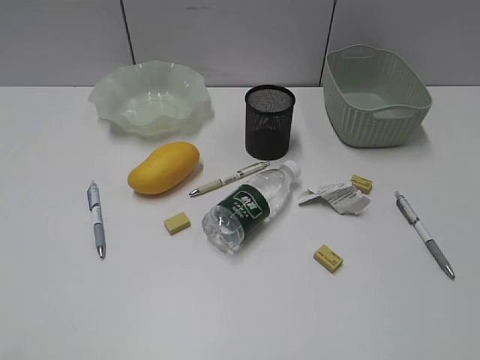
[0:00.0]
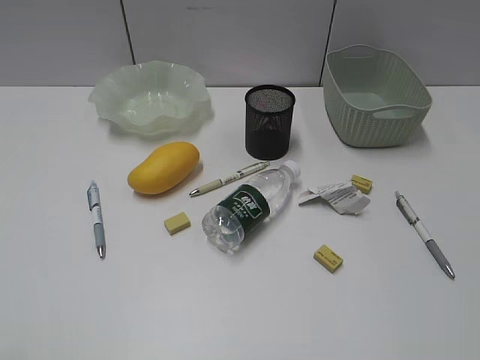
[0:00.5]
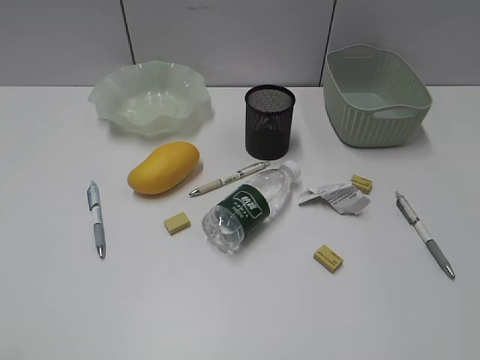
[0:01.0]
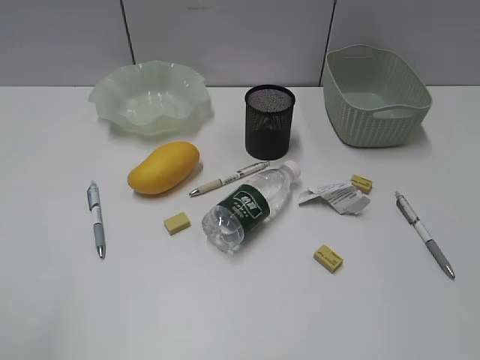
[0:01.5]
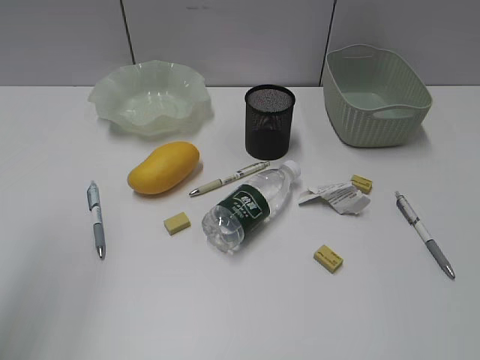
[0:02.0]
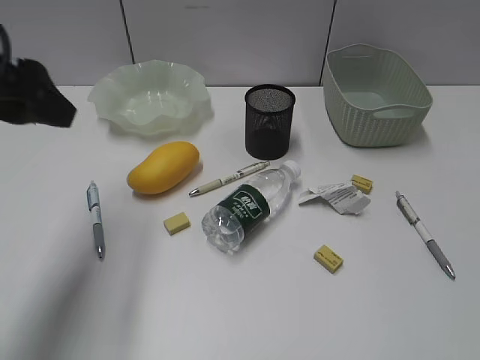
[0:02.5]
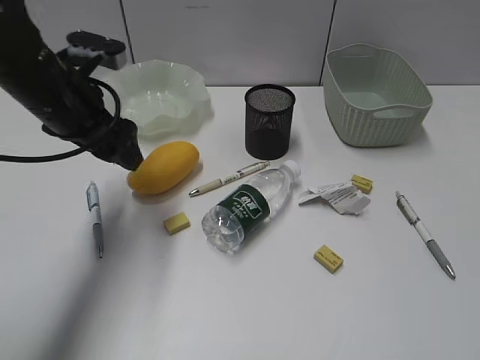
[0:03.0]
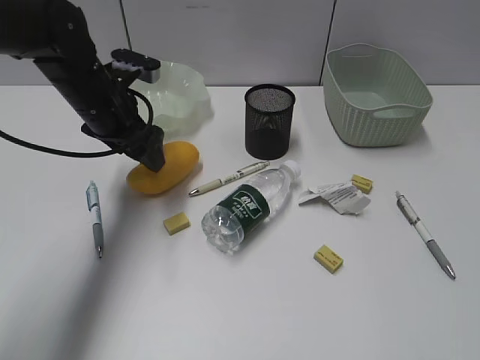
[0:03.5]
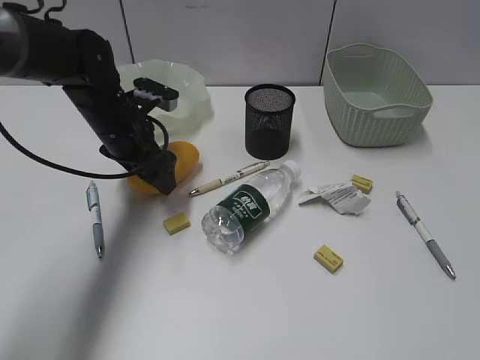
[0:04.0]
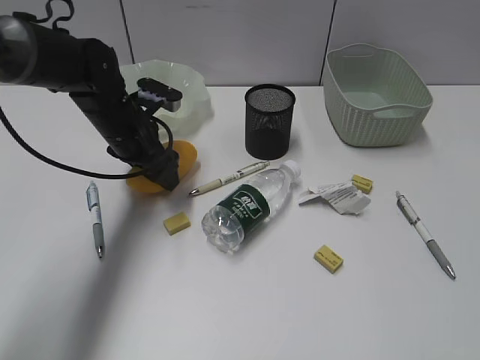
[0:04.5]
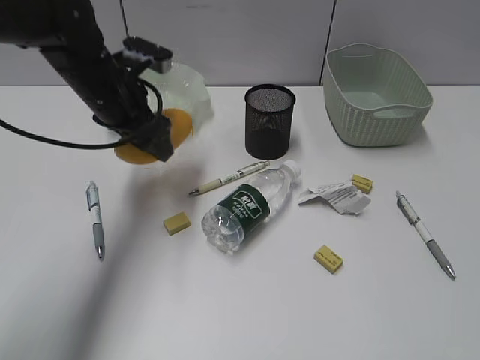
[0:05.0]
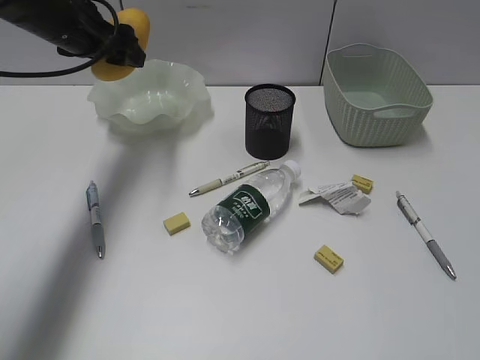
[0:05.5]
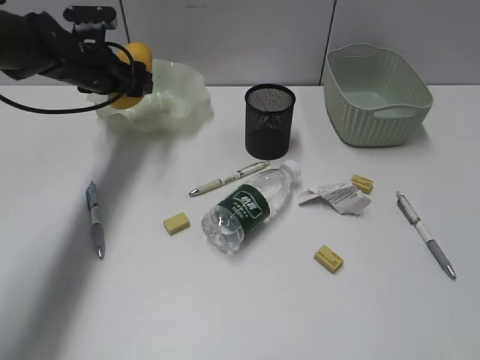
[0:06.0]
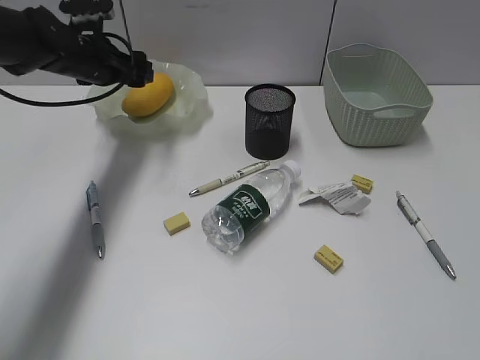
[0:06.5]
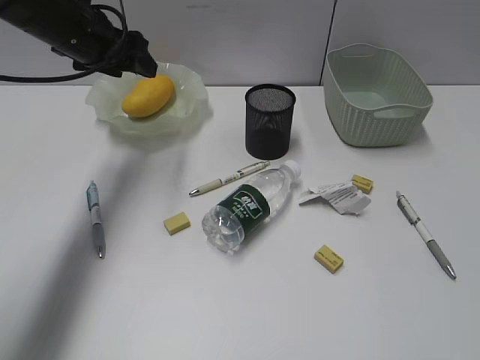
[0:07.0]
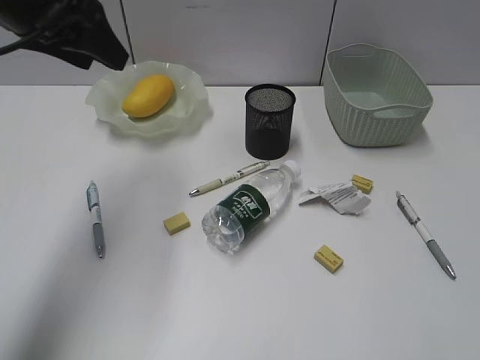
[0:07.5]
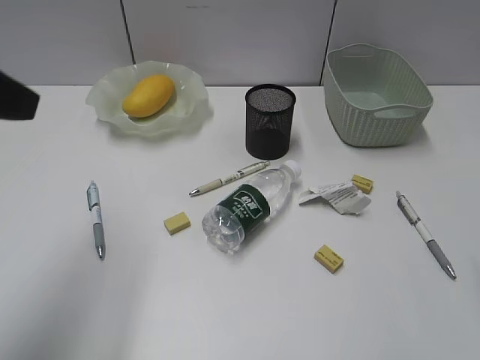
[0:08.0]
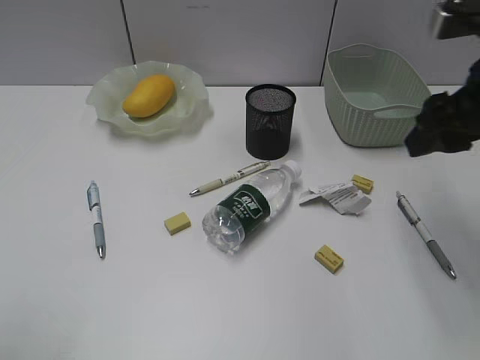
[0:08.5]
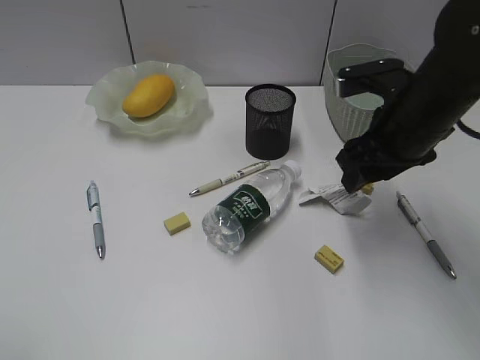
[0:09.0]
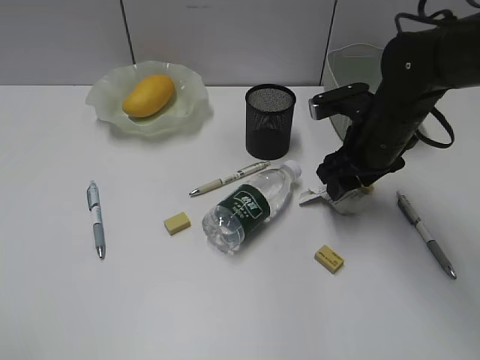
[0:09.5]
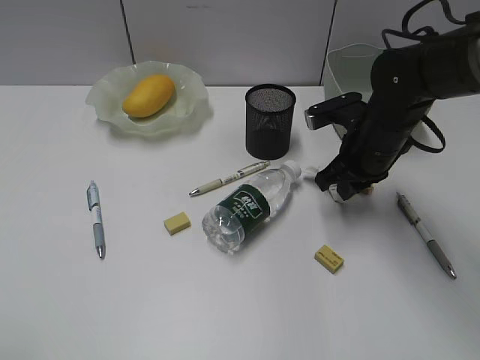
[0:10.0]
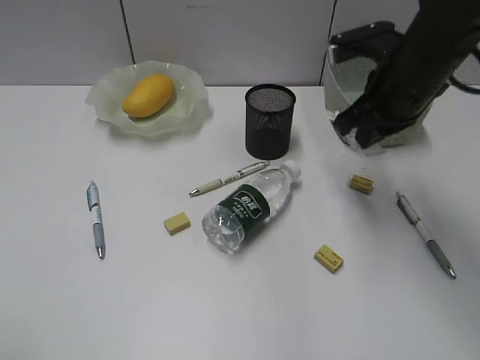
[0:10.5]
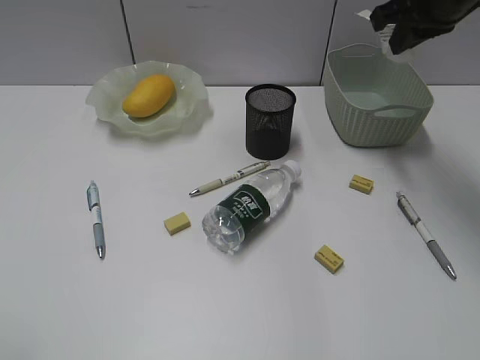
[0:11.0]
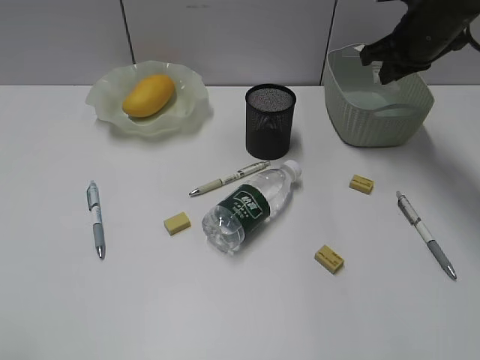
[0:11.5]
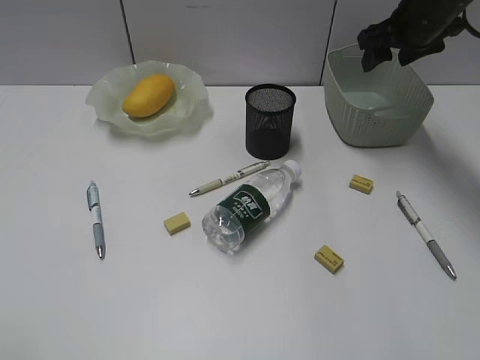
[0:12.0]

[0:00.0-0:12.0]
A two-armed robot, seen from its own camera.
Step, 2.5 to 4.5 s: Grasp the mango with left gripper.
Step, 5.0 to 6.5 s: Place the mango in the plate with left gripper.
Step, 7.0 to 10.0 s: Grasp the waste paper with right gripper.
Step, 10.5 to 11.5 s: Place the waste paper in the basket with right gripper.
2.0 to 4.0 s: The left gripper is displaced downward, forward and to the right by approximately 40 cm.
4.0 to 6.0 s: The left gripper shifts some 10 cm forward and to the left, and travels upward and back again, approximately 10 cm each way.
6.0 to 8.0 s: The left gripper travels backward and upward by some 30 cm.
8.0 to 10.0 s: The right gripper is displaced forward, downward and to the left by approximately 30 cm, and closes its fingers. Meanwhile the left gripper travels backward by roughly 20 cm.
10.0 to 12.0 s: The right gripper is displaced forward, upward and to the right by roughly 15 cm, and opens.

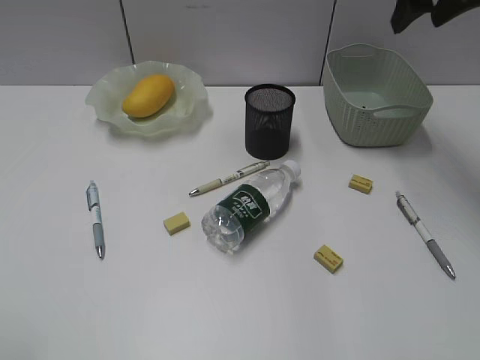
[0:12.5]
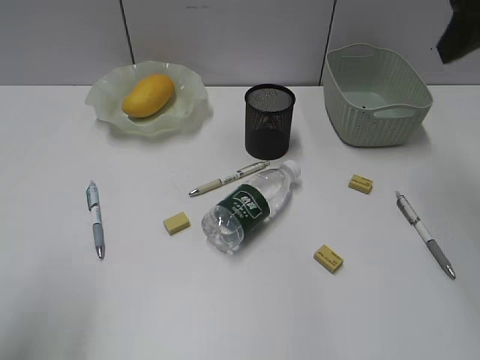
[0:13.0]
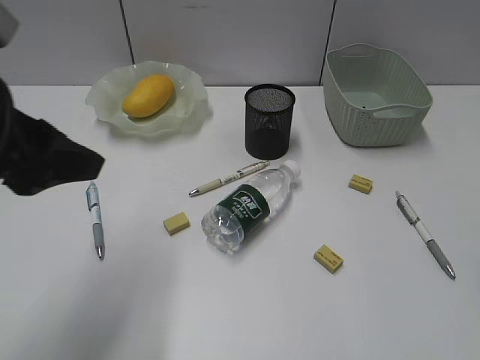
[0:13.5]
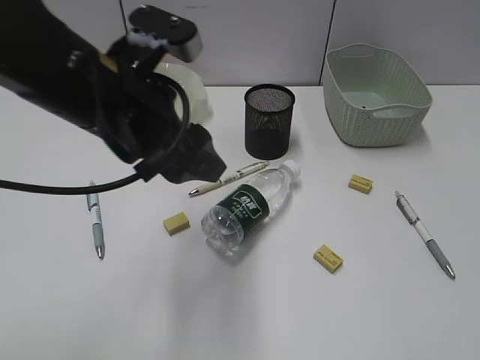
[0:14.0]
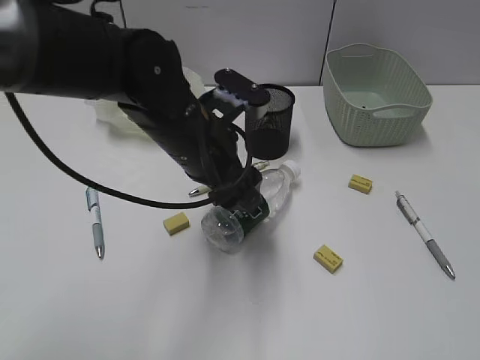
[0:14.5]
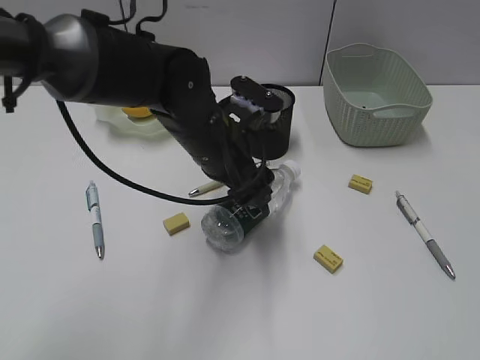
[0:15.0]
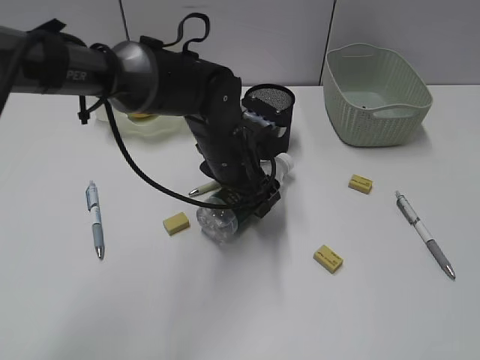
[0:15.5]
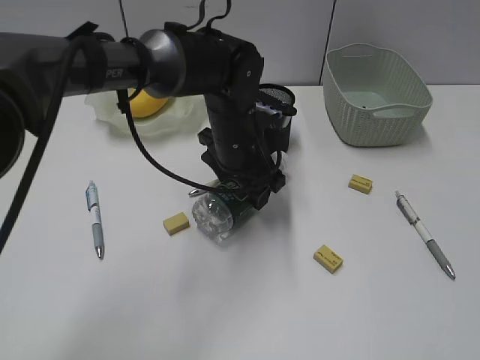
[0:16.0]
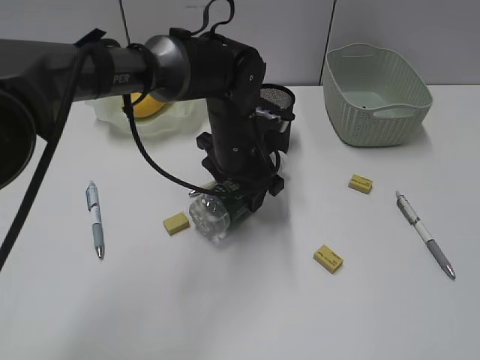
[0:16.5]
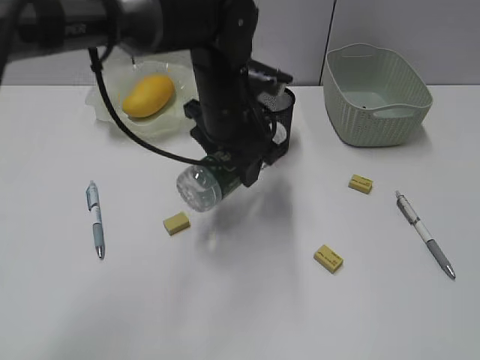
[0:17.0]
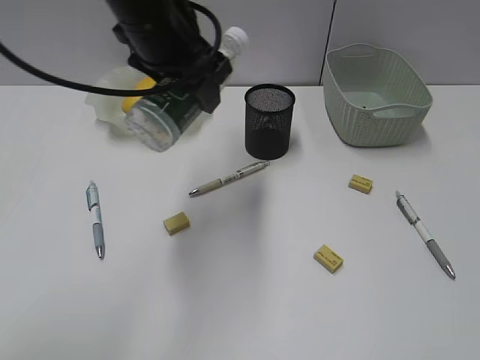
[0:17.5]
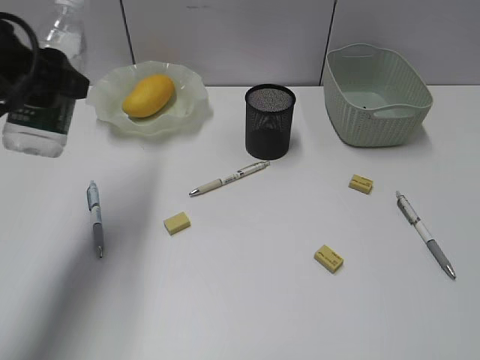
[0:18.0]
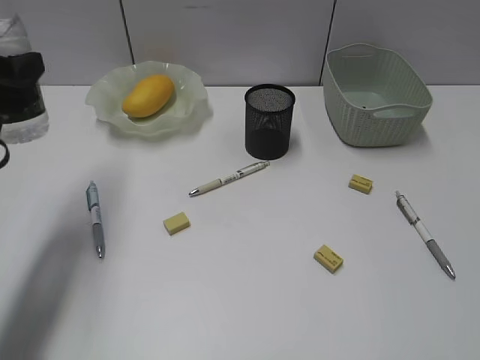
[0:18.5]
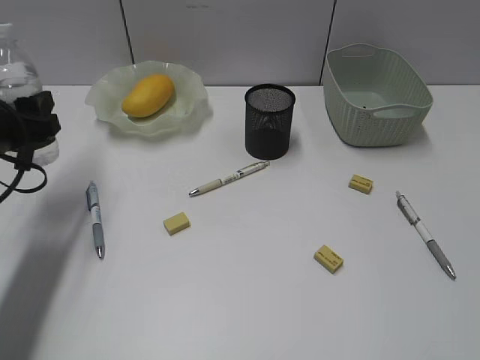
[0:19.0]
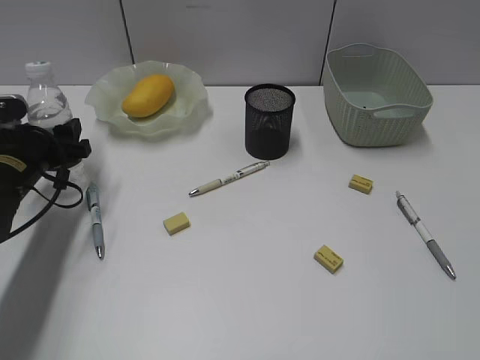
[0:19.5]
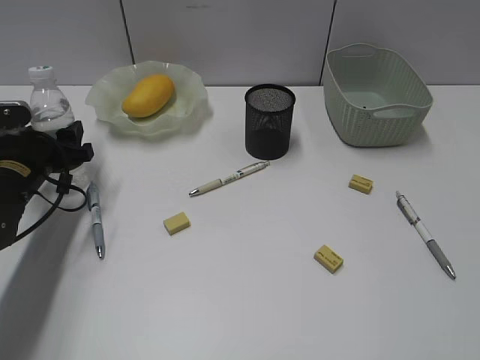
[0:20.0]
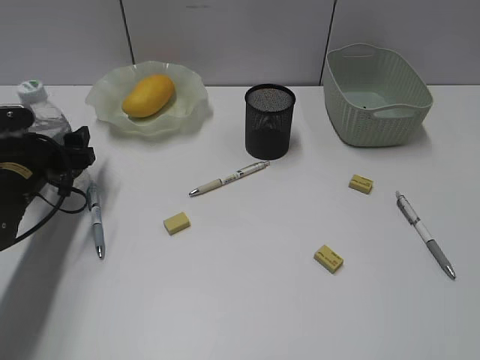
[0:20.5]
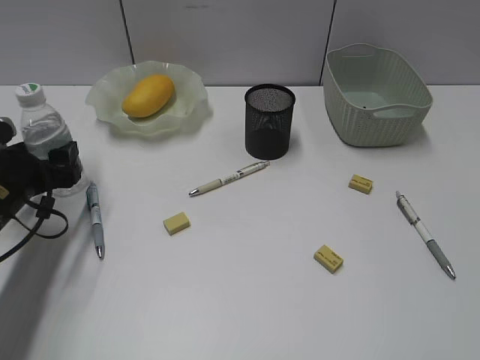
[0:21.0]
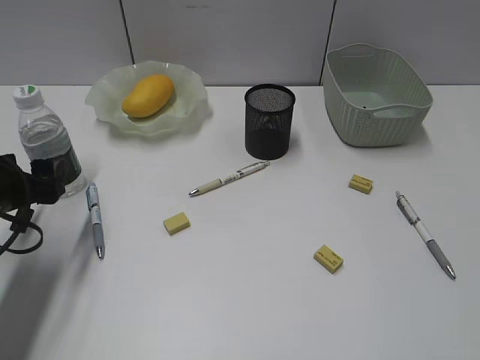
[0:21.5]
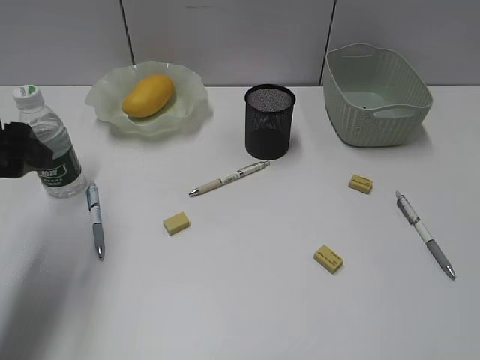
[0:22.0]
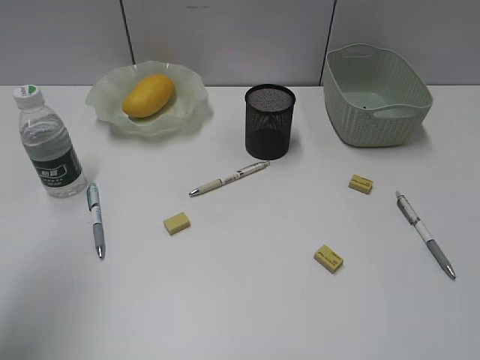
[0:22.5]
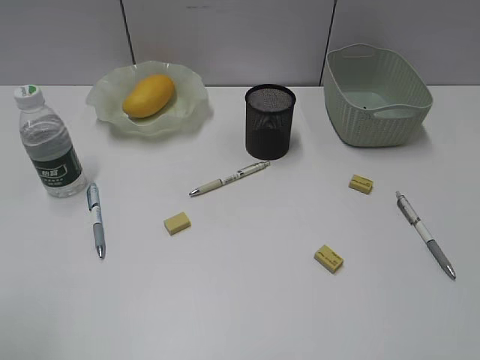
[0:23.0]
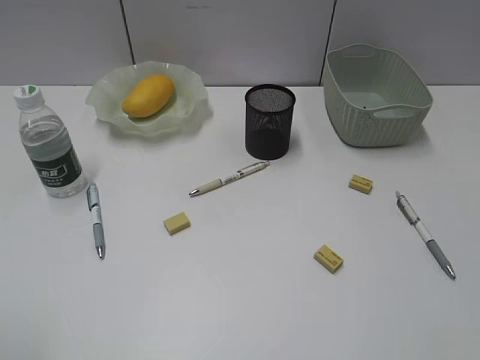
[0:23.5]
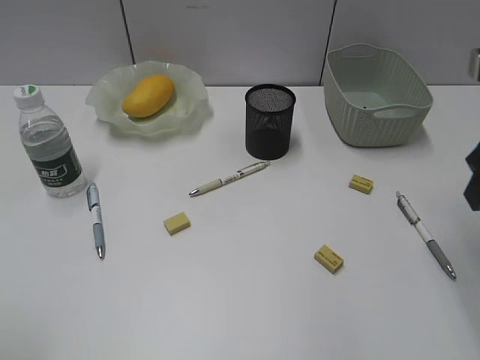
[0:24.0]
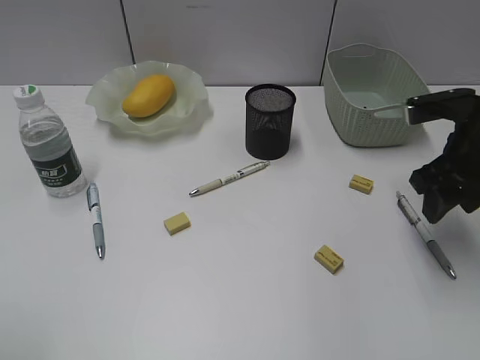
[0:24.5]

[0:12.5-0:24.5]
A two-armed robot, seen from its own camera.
Step, 12.5 to 16.0 s: Grasp the bottle with left gripper.
Step, 16.5 to 21.0 s: Stand the bottle with left gripper.
12.5 to 14.5 s: The right gripper moves backward, some 40 cm. The left gripper moves forward and to the right, about 40 cm.
14.5 to 16.5 s: The left gripper shifts roughly 10 cm forward, downward and to the right.
16.5 to 18.5 s: The left gripper is displaced to the left, backward and upward by roughly 30 cm.
18.5 to 20.5 s: The left gripper shifts some 20 cm downward and forward.
20.5 to 22.5 s: The left gripper shifts approximately 30 cm upward and backward, and closes.
22.5 to 24.5 s: The right gripper shifts about 30 cm forward, while the left gripper is displaced backward by roughly 15 cm.

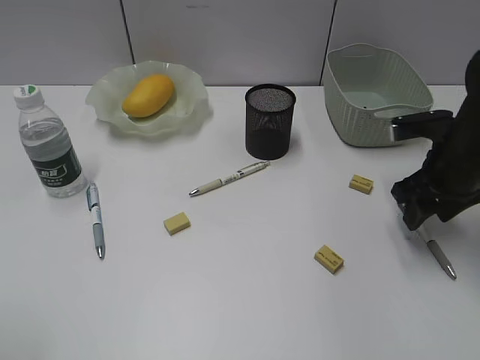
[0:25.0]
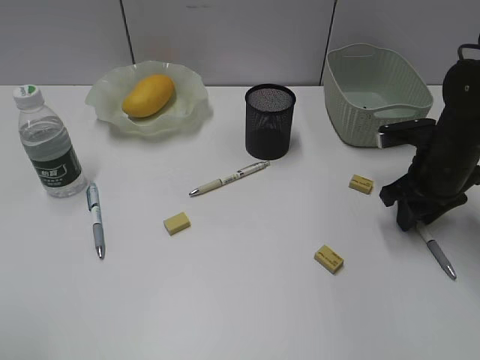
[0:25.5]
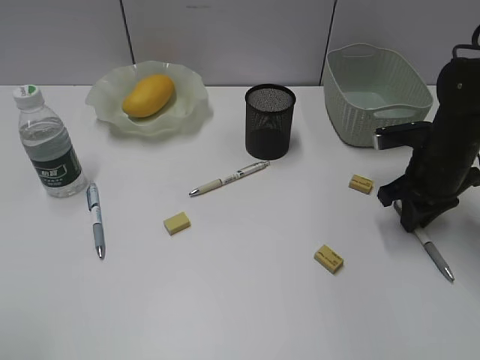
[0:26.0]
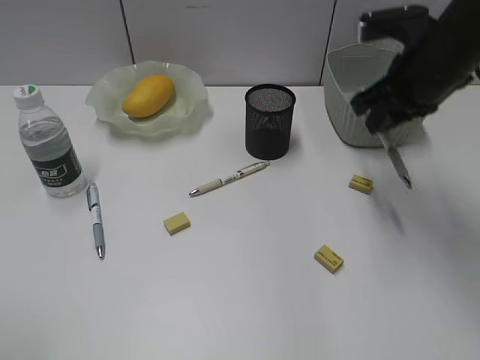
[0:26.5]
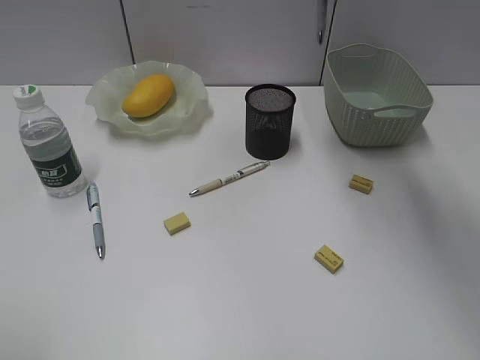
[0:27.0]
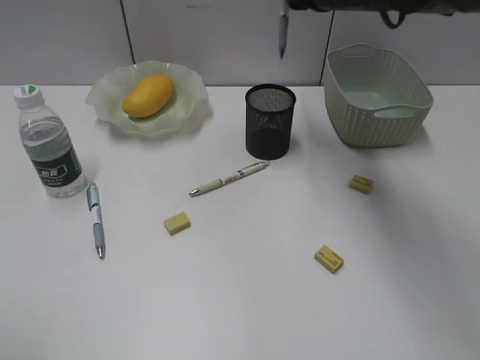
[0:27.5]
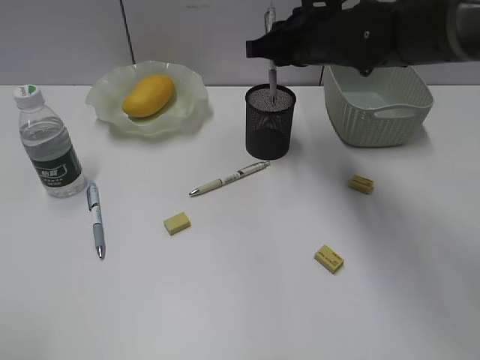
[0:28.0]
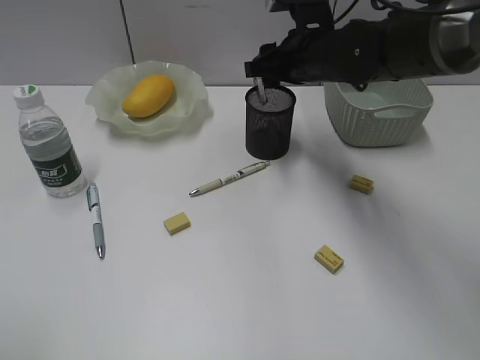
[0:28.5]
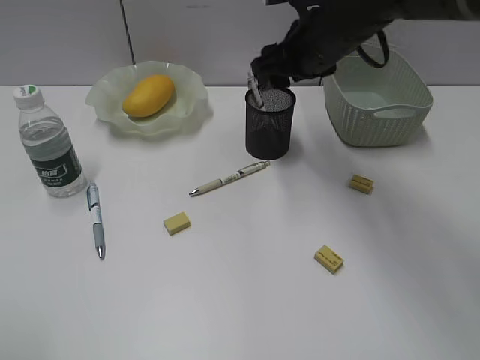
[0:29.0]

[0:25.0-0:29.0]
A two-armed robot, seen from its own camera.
Step, 26.5 to 28.5 s: Place the gray pen in pen holder with right gripper.
25.0 to 27.0 s: The right gripper is displaced upward and to the left by about 25 cm, and closes its fingers.
27.0 to 29.0 s: The right gripper moves downward, about 10 cm, and opens up.
